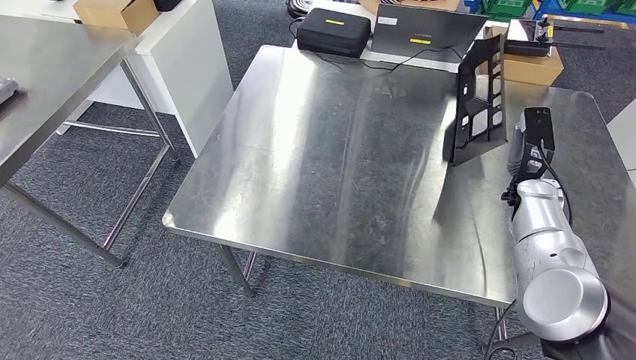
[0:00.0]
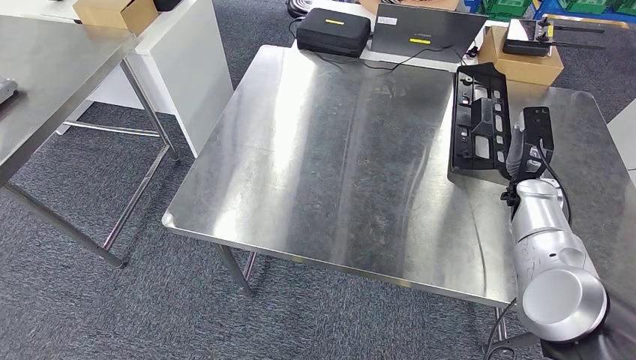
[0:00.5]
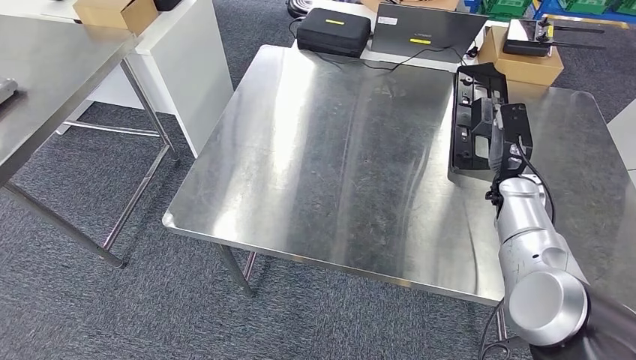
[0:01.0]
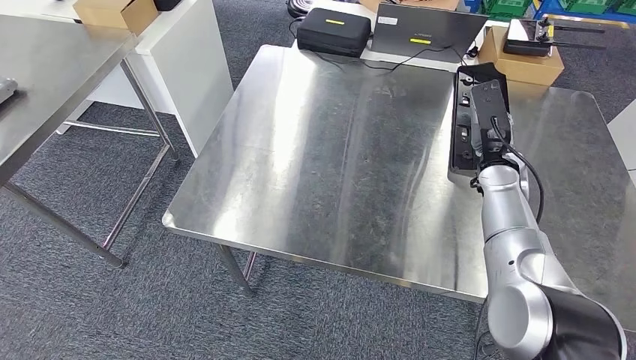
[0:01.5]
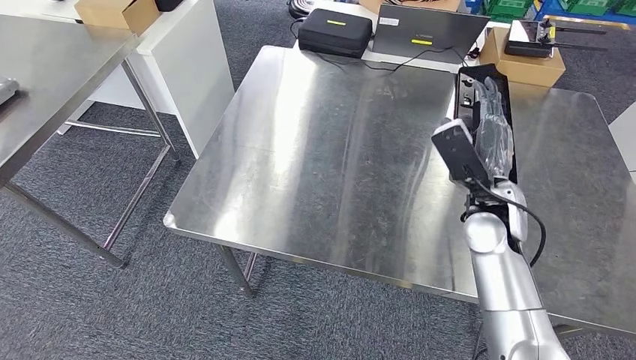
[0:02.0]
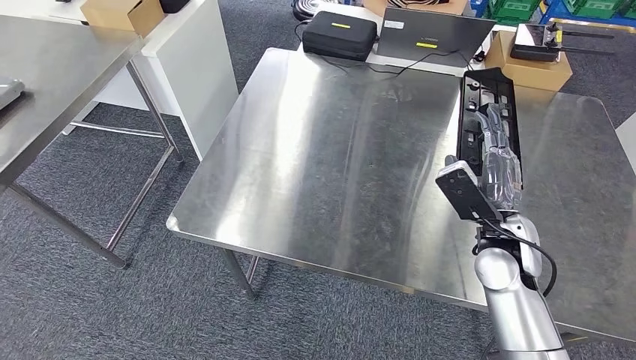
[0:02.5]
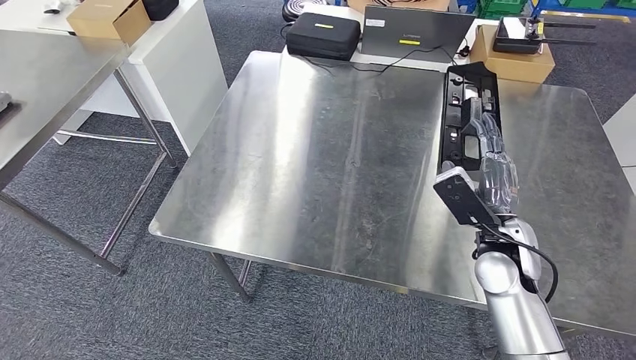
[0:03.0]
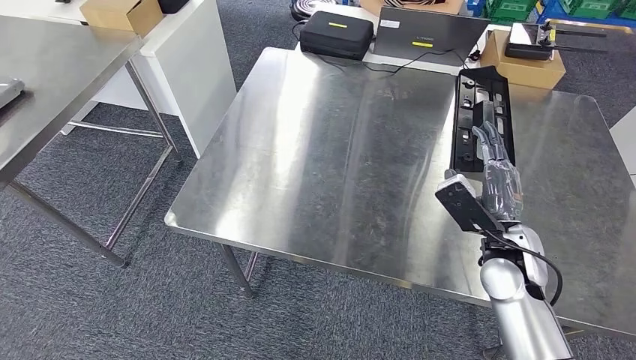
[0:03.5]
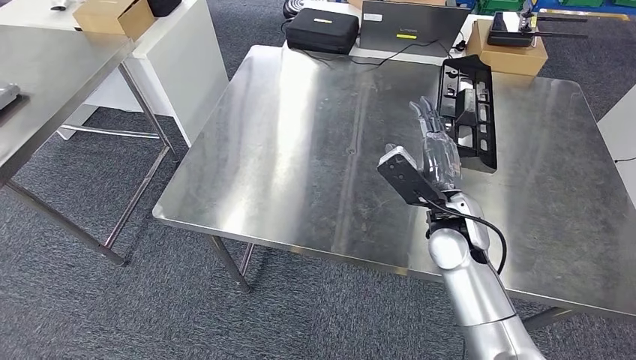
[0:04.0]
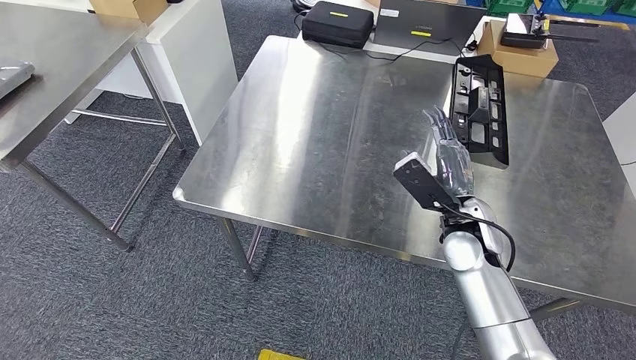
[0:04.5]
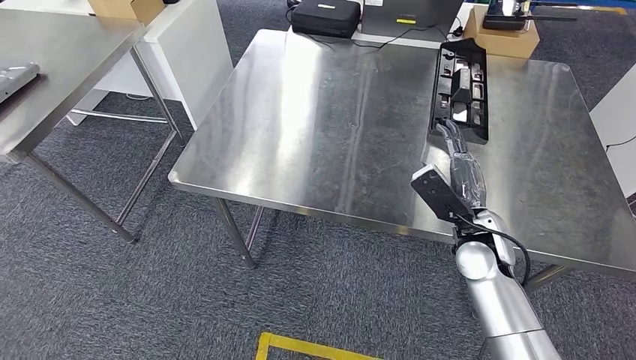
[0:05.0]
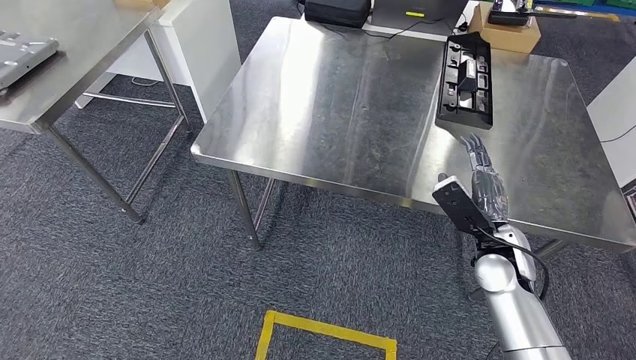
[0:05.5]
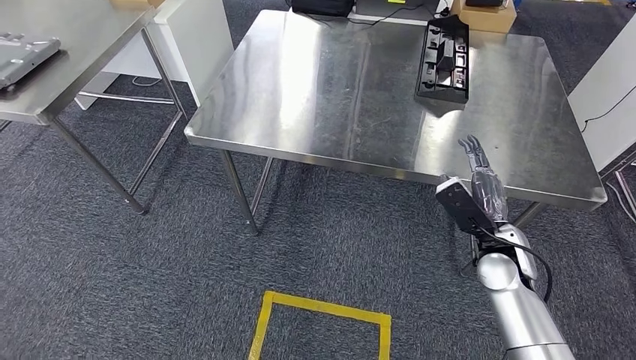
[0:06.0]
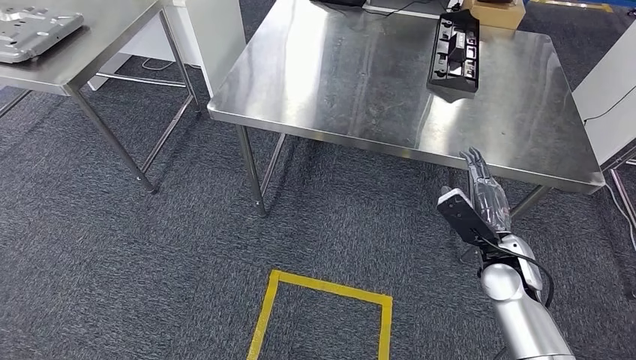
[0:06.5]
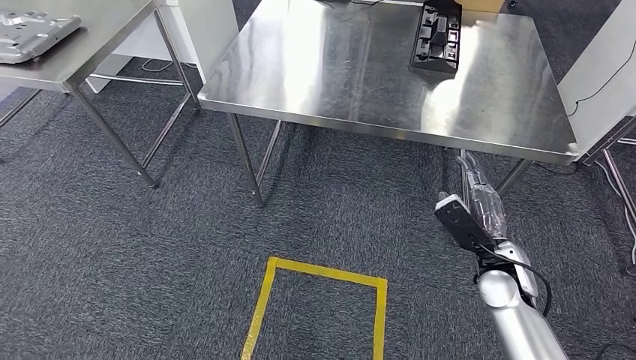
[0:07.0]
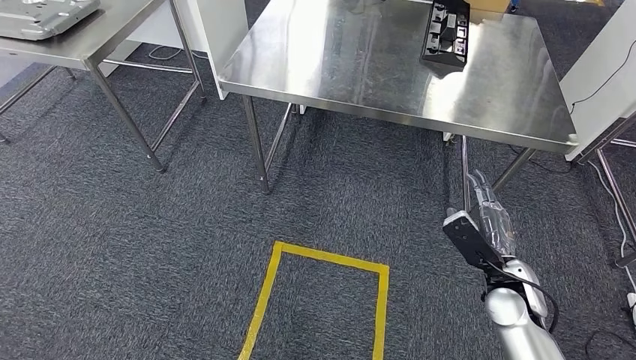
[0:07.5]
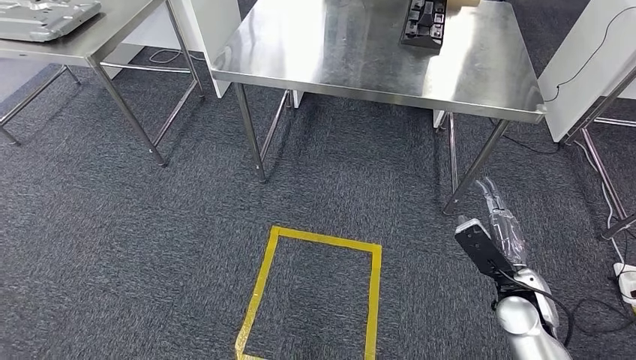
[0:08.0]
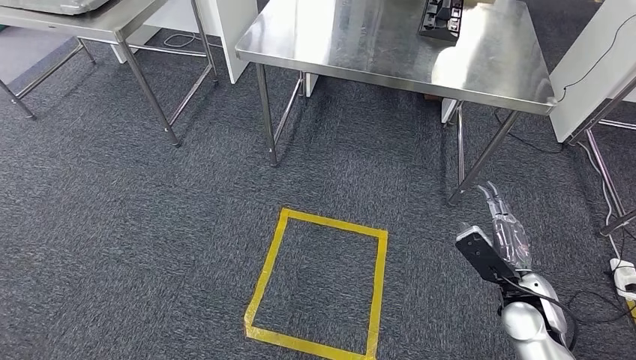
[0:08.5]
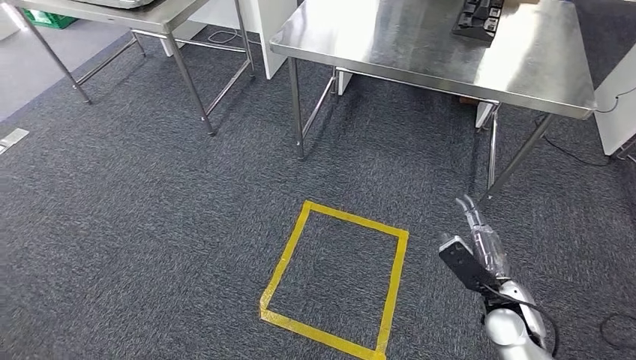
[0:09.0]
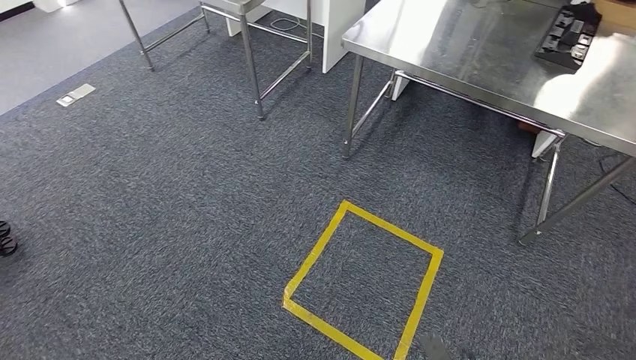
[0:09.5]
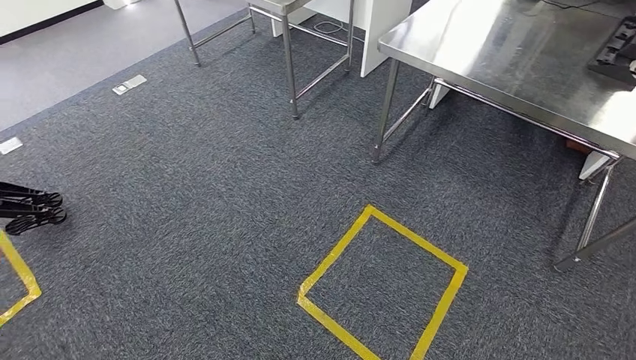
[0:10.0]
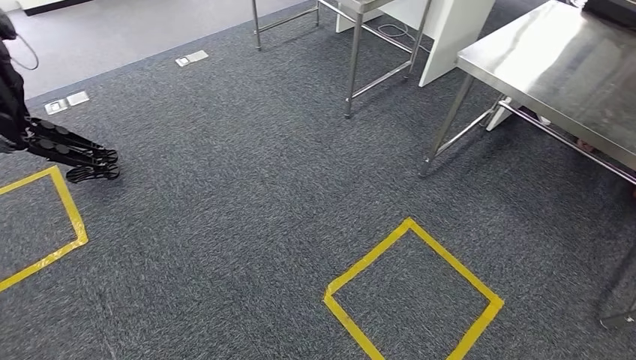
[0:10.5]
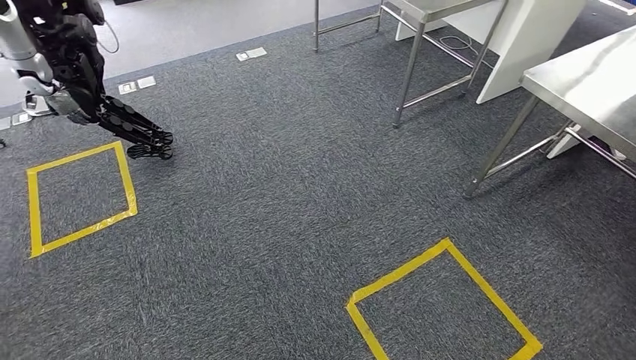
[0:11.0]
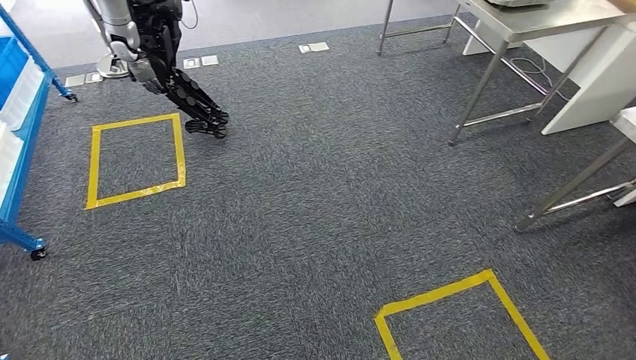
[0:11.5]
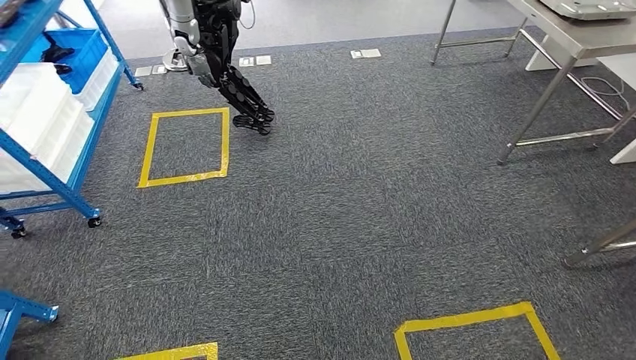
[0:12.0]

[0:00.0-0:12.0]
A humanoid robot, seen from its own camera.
0:00.0 to 0:02.0: The right hand shifts about 15 cm to the left and backward.

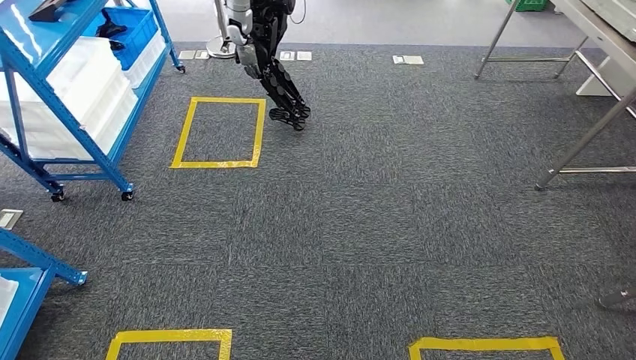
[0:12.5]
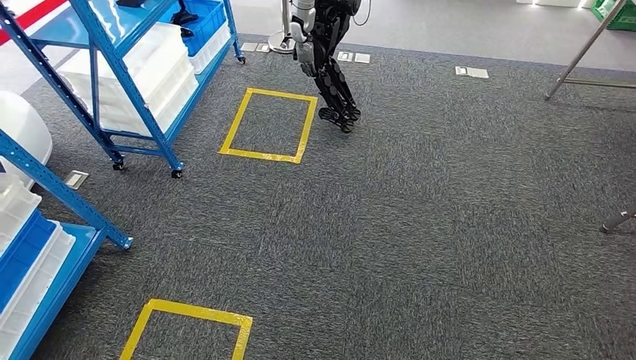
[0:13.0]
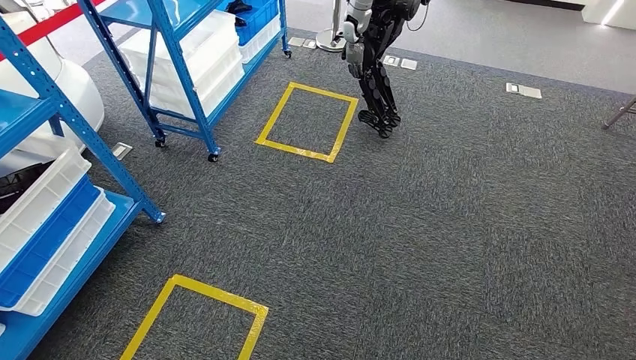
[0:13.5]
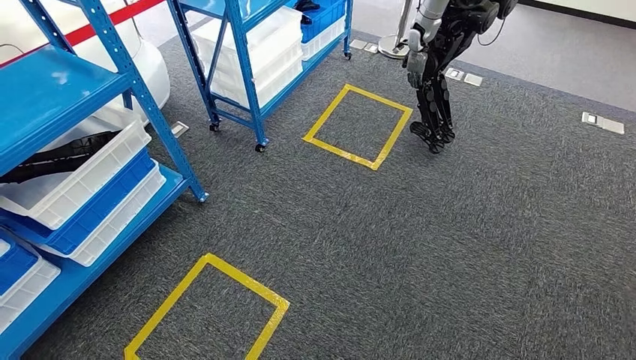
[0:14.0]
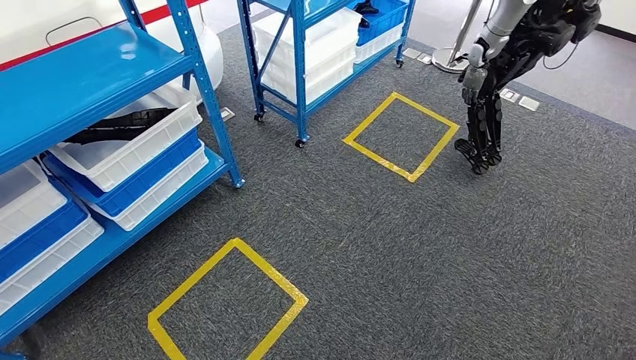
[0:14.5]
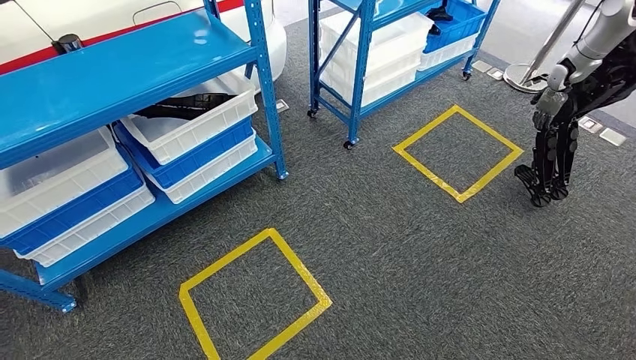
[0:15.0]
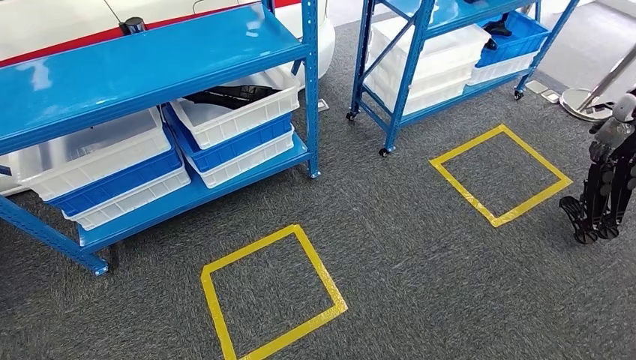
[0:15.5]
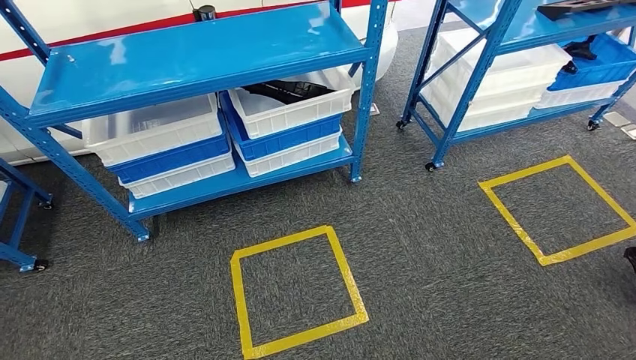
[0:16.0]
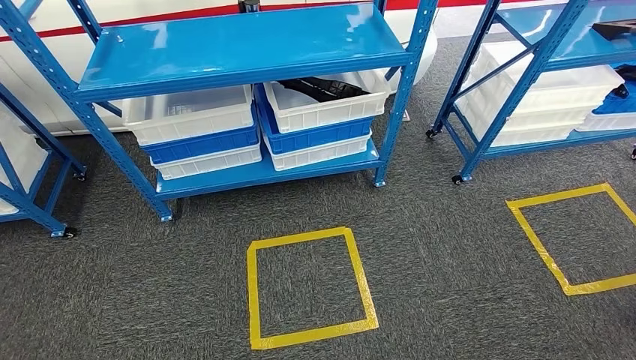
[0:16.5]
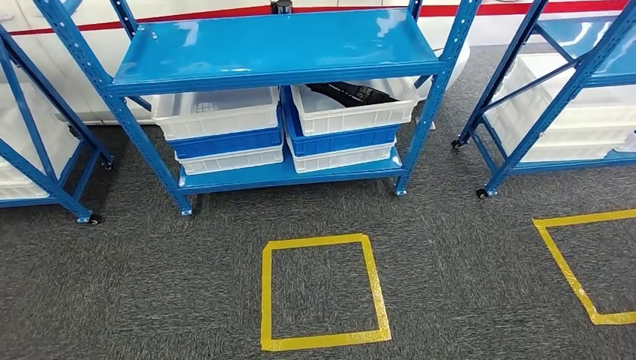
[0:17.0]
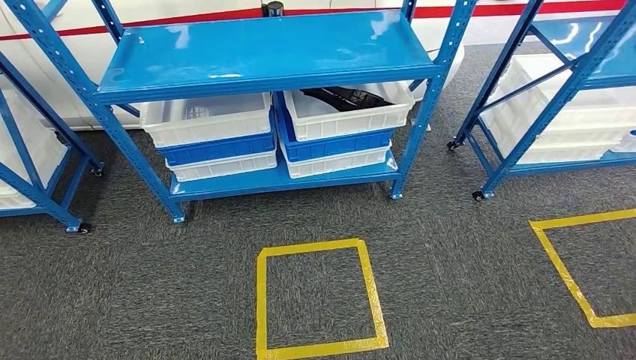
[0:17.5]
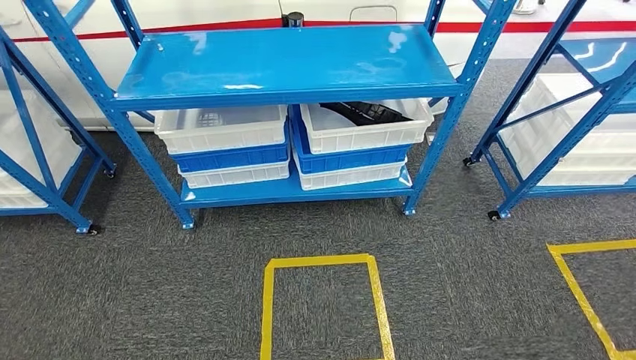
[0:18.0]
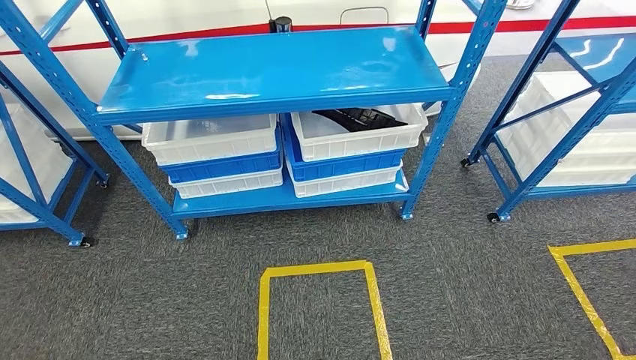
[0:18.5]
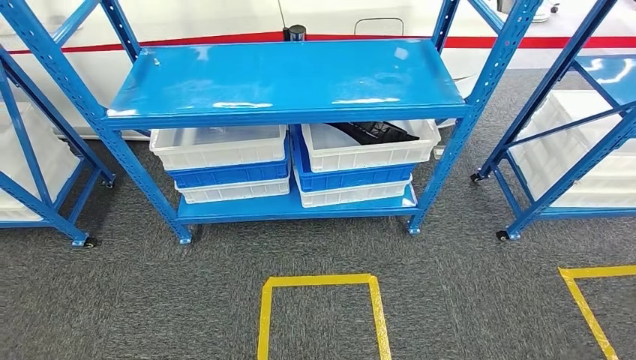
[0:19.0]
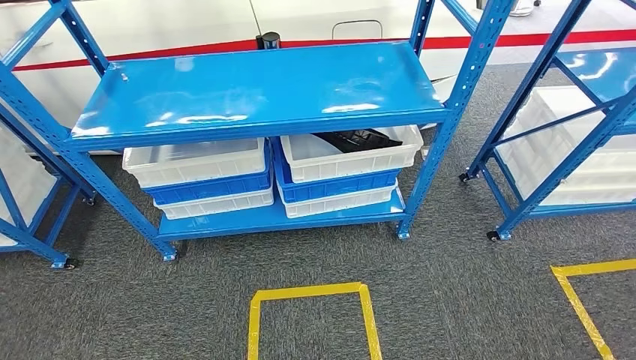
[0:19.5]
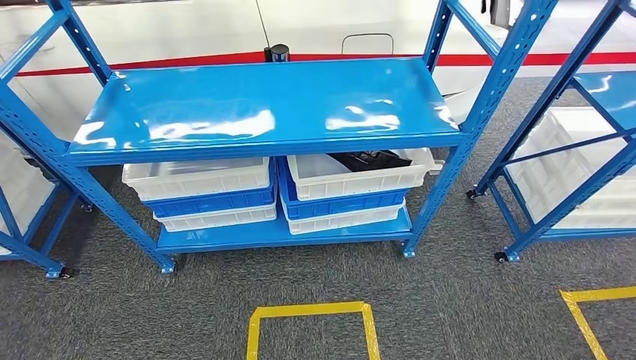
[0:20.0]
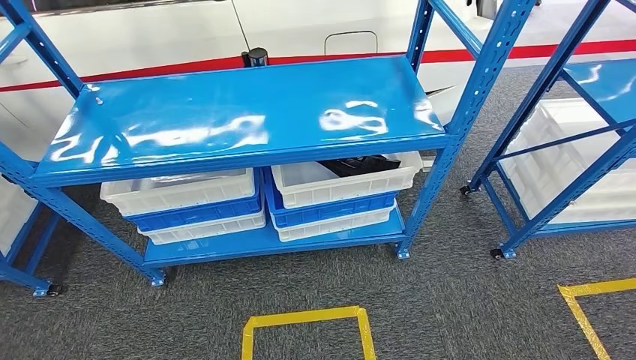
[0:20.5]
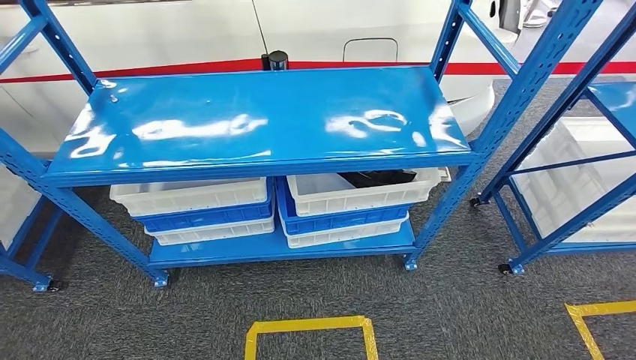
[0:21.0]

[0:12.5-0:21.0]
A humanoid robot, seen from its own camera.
Step, 0:12.5 to 0:21.0: Move to the initial position of the shelf.
